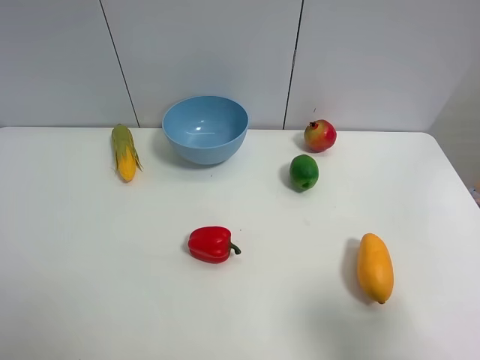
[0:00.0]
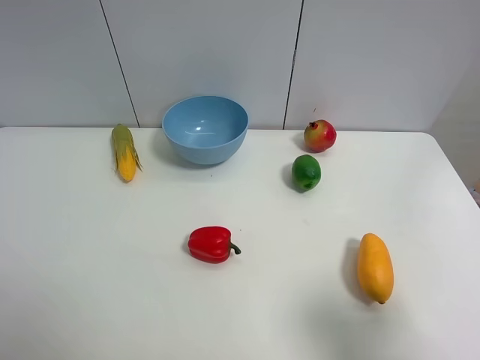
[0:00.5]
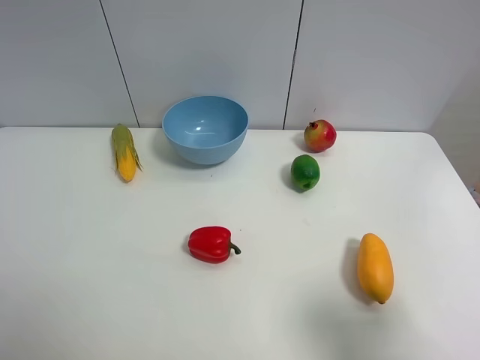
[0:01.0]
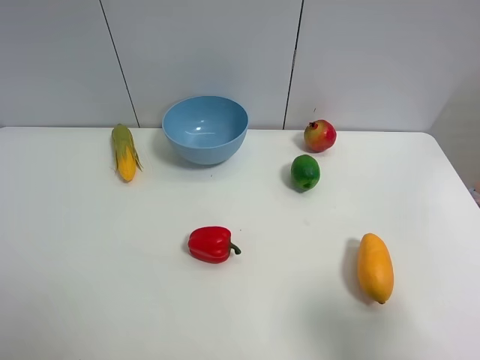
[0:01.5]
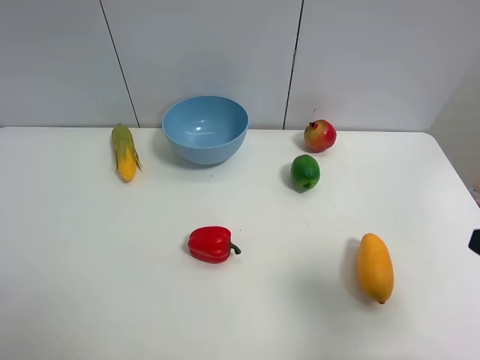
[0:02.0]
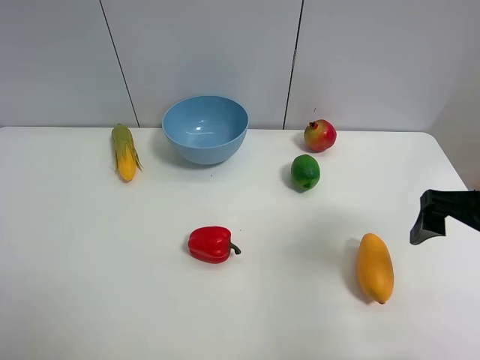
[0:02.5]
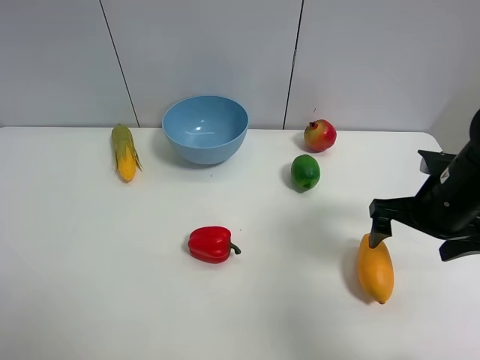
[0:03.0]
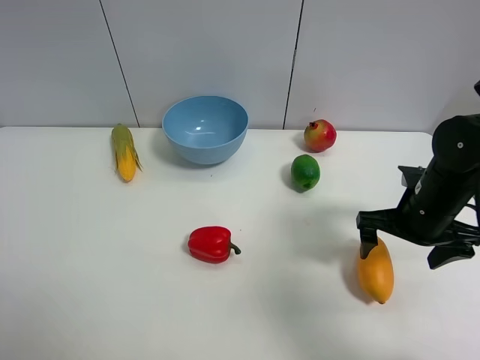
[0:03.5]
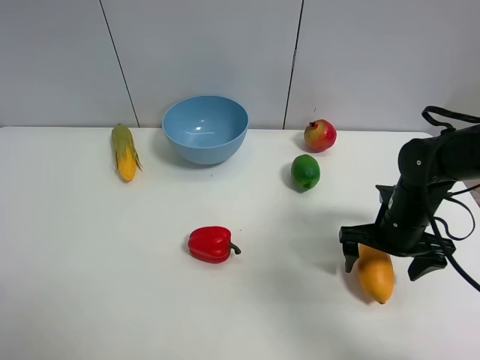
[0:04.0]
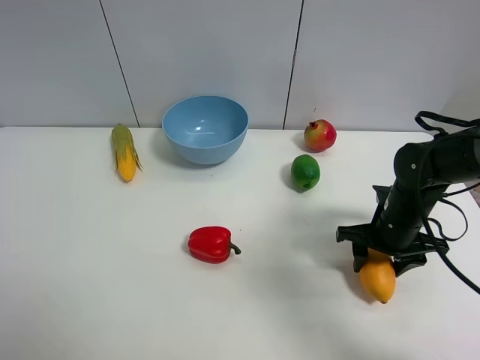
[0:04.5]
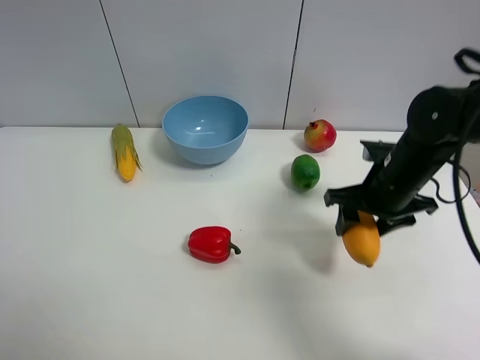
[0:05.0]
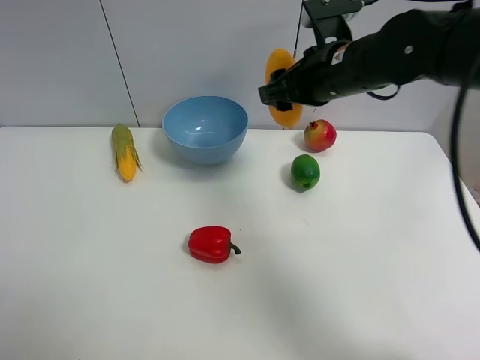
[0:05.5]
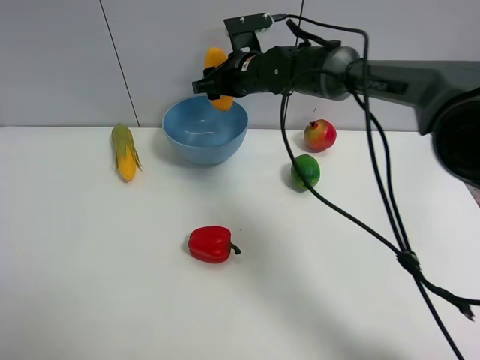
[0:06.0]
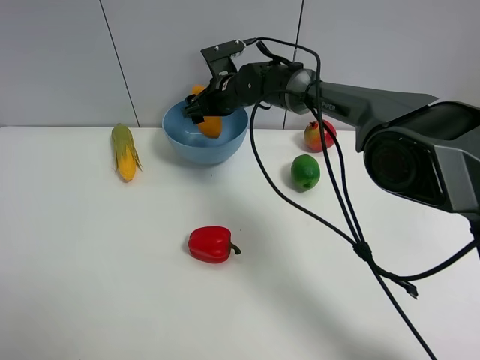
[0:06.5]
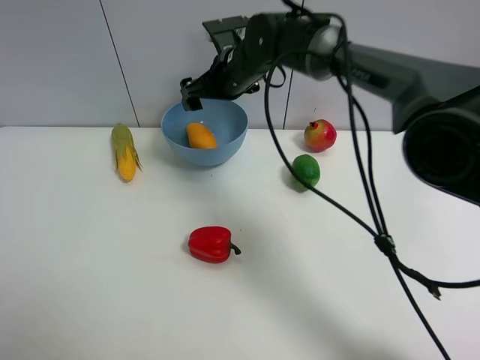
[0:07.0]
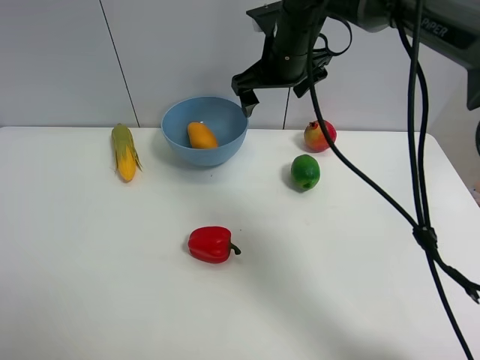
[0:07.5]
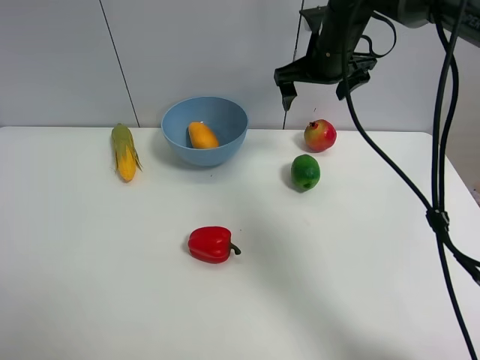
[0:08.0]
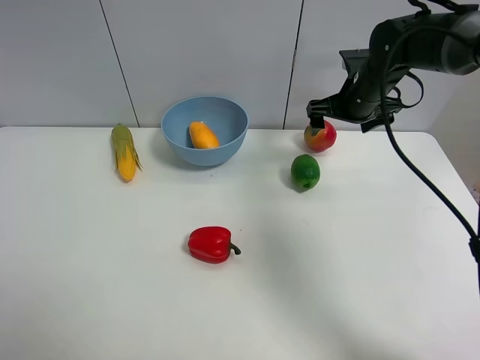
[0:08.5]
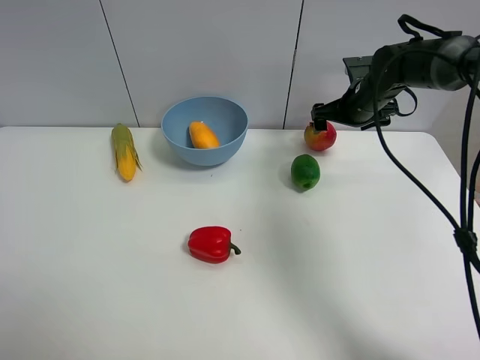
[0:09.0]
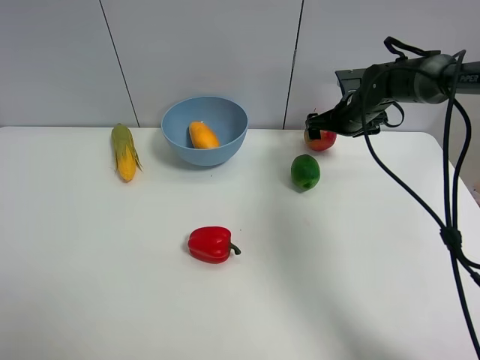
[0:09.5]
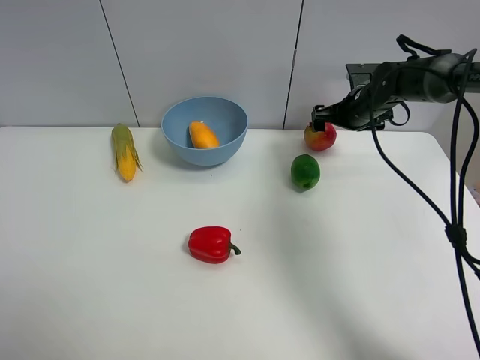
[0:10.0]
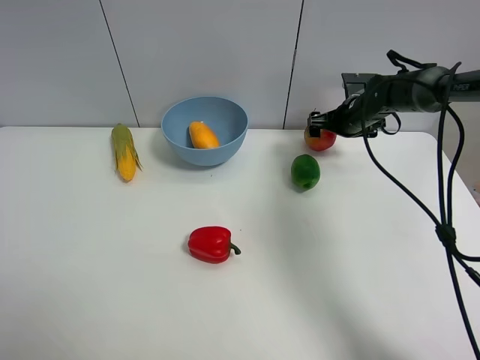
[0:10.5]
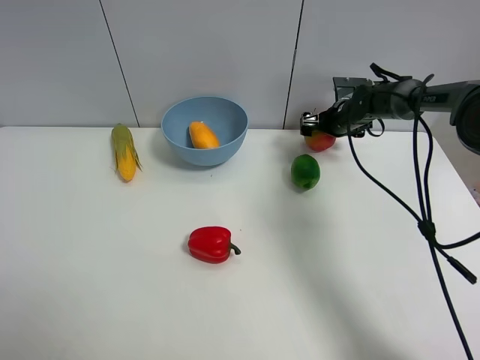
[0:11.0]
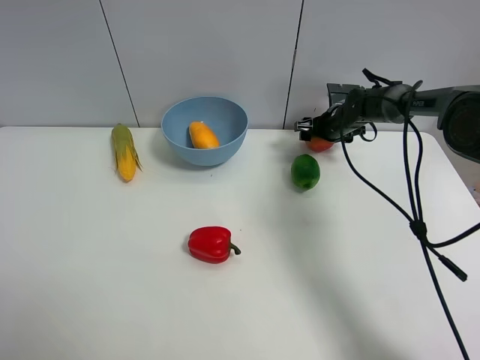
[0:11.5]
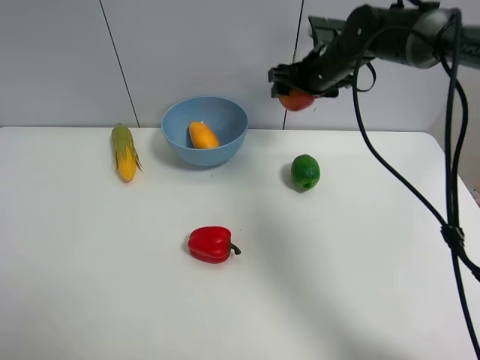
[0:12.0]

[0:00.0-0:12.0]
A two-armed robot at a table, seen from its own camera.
Task of the whole recording: Put the three fruits on the table into a bowl.
Step, 0:00.0 to 0:04.5: Grasp the mango with right gripper.
Step, 0:05.0 to 0:06.5: Place the mango in the blue bowl with right gripper.
Step, 0:07.0 to 0:11.5: Grasp the pomegranate with right gripper.
0:00.0 to 0:02.0: The right gripper shifts approximately 5 cm forward.
0:02.0 to 0:04.0: The right gripper is displaced forward and downward by some 25 cm.
0:04.0 to 0:06.0: The right gripper is displaced to the left, forward and upward by about 30 cm, and closes its fingers.
0:06.0 to 0:08.0: The right gripper heads to the right and upward, covering some 15 cm, and opens up.
0:08.0 to 0:10.0: The right gripper heads downward and to the right, covering roughly 15 cm.
0:10.0 to 0:12.0: The right gripper goes approximately 15 cm to the left and upward, and closes its fingers.

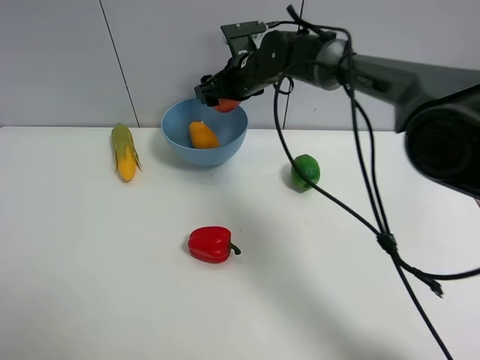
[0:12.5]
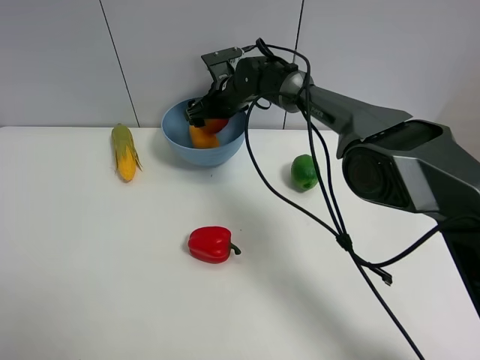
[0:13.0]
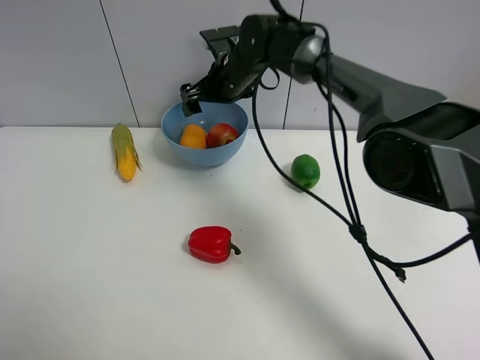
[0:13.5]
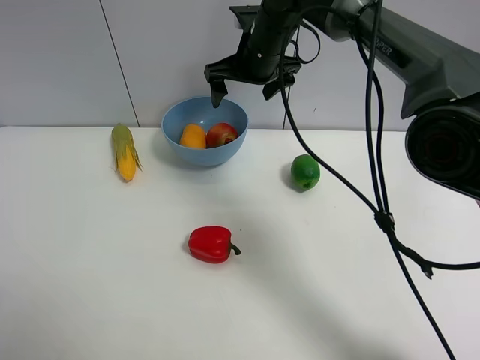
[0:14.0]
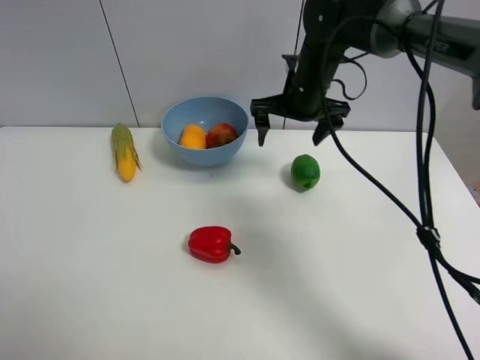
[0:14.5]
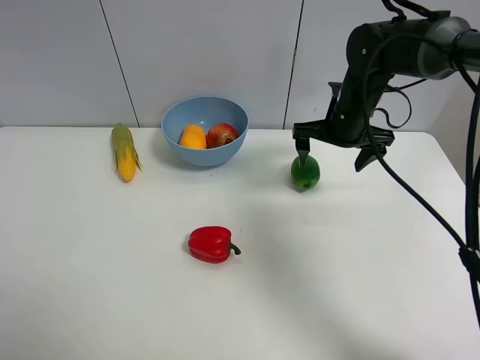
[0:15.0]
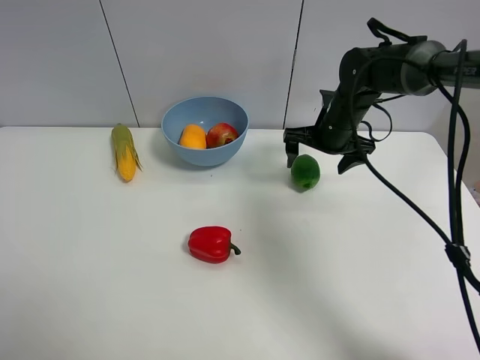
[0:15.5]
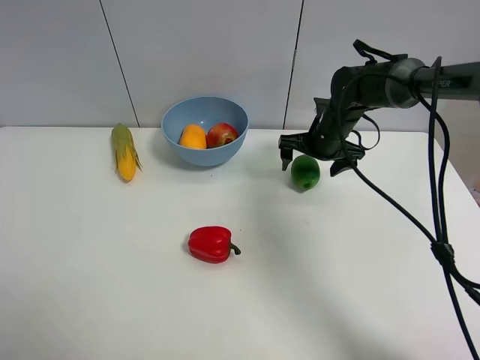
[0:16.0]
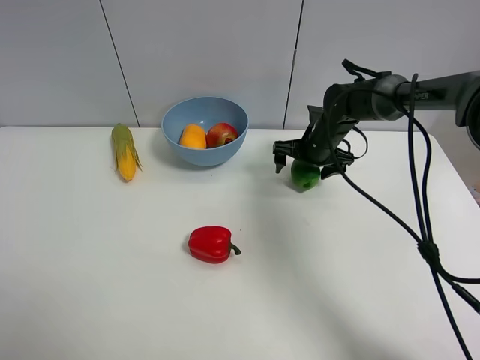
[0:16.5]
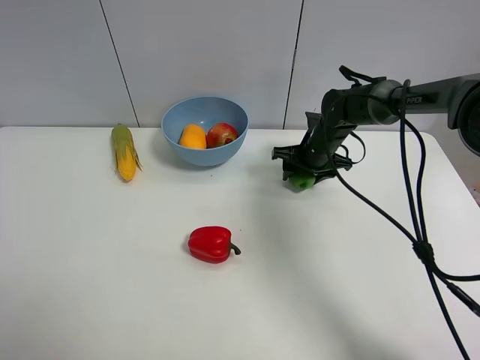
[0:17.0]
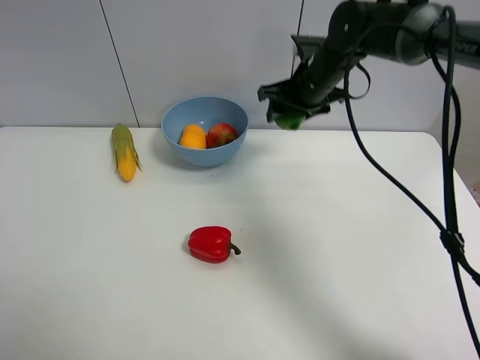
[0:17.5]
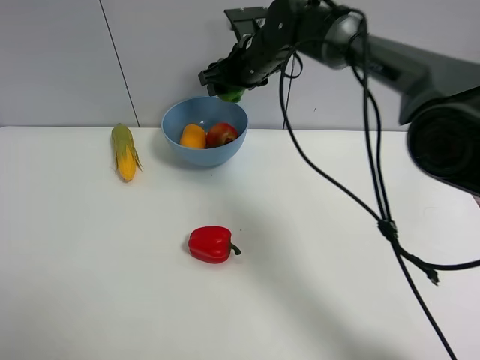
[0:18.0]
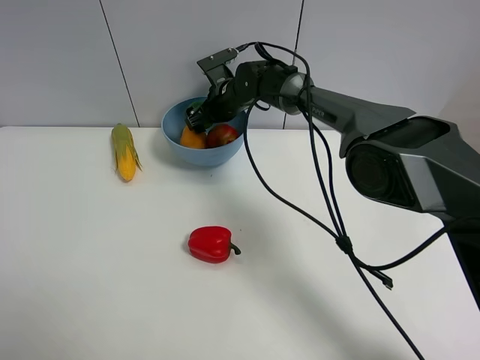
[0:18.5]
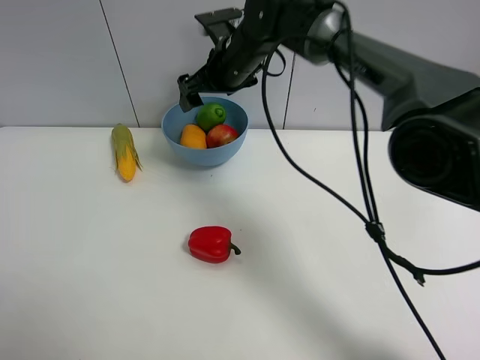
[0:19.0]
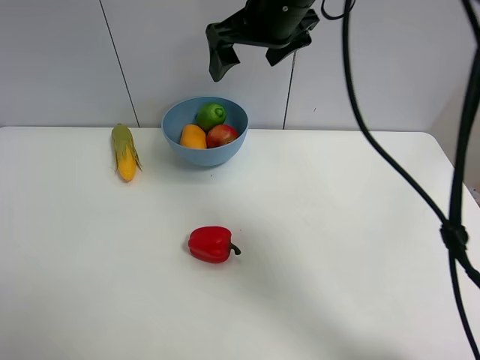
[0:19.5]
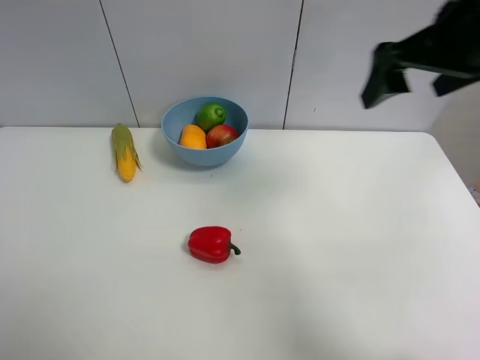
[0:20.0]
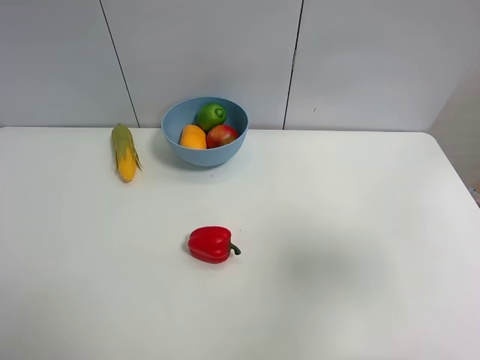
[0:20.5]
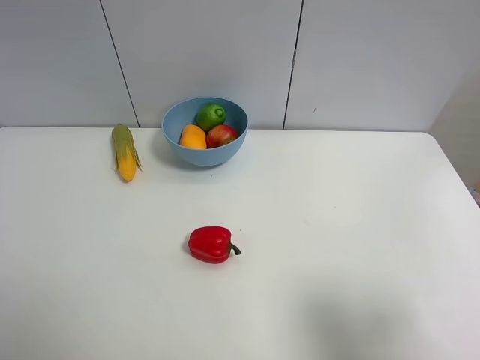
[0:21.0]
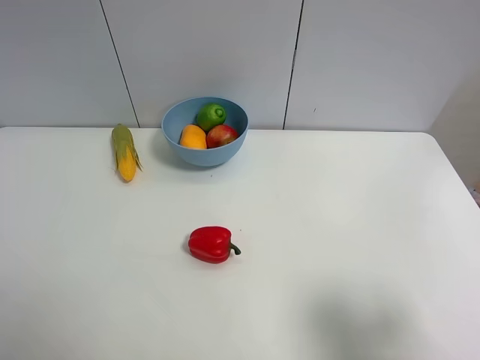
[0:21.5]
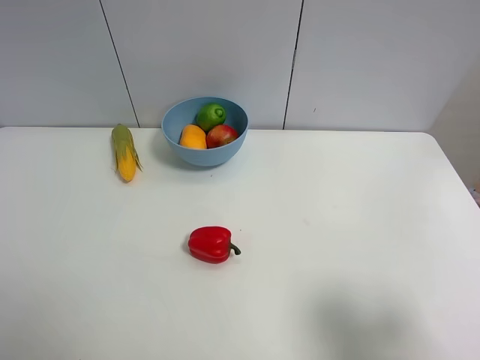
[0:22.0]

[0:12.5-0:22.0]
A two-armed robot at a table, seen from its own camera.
Task of the whole recording: Put the three fruits on the table into a bowl.
Step, 0:13.5 to 0:17.0: Grasp the green lemon with right gripper.
Step, 0:17.5 to 0:19.0: Place the green lemon in the blue bowl with right gripper.
0:12.5 to 0:14.5: The right gripper moves up and down over roughly 10 cm, changing direction 2 times, and opens.
0:14.5 to 0:16.5: The right gripper travels downward and to the right by approximately 15 cm.
0:16.5 to 0:18.0: The right gripper is displaced to the left and upward by roughly 20 cm, and closes its fingers.
0:18.0 to 0:20.0: The right gripper moves backward, to the right and upward, about 35 cm, and opens.
0:20.0 to 0:22.0: The right gripper goes roughly 25 cm backward and downward.
